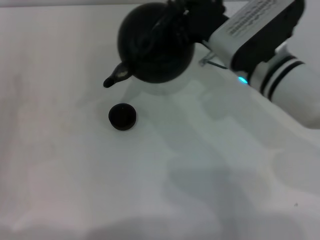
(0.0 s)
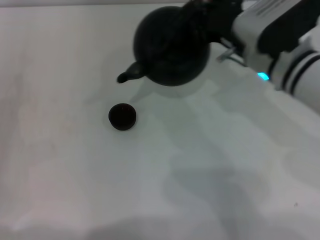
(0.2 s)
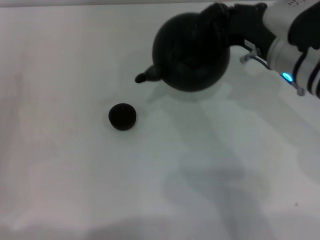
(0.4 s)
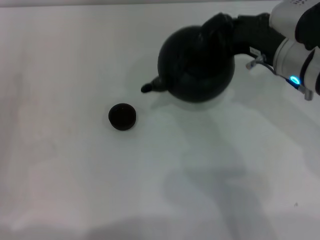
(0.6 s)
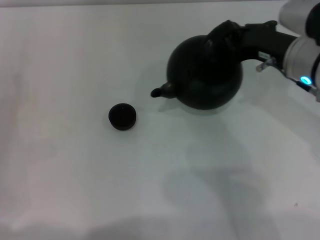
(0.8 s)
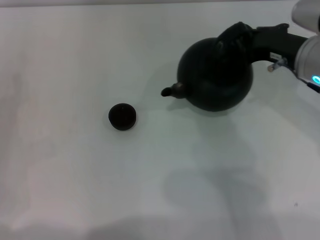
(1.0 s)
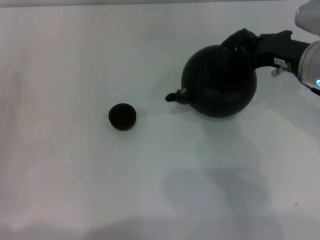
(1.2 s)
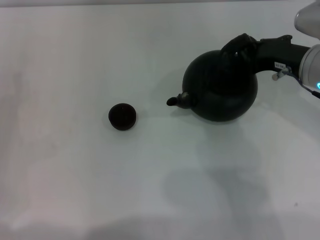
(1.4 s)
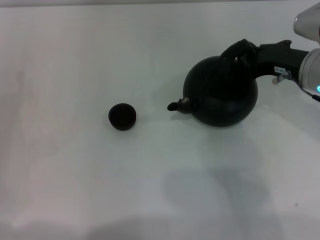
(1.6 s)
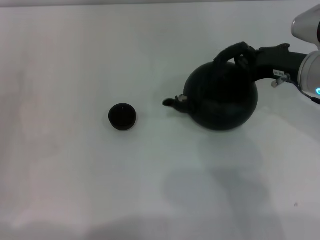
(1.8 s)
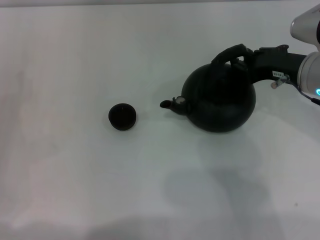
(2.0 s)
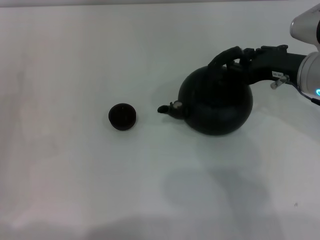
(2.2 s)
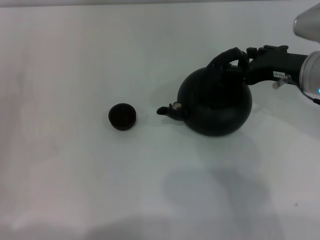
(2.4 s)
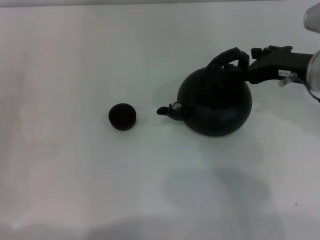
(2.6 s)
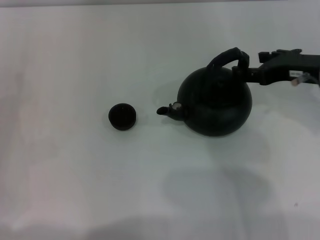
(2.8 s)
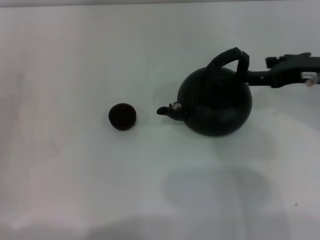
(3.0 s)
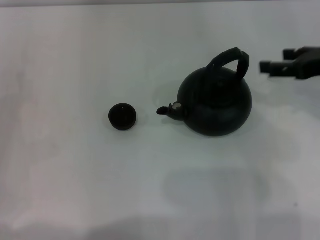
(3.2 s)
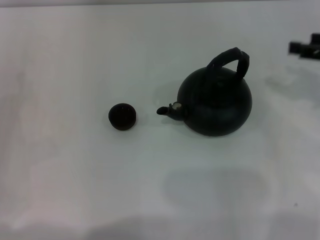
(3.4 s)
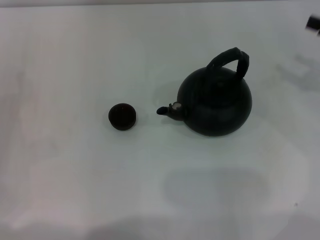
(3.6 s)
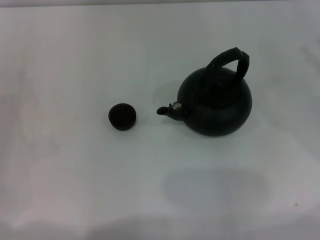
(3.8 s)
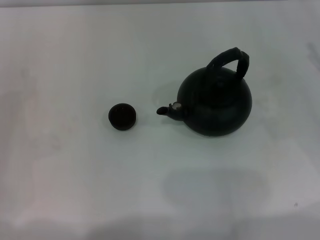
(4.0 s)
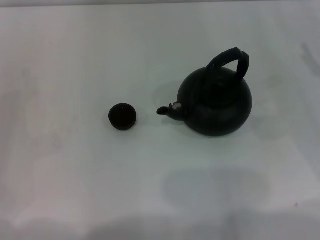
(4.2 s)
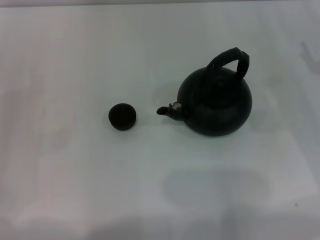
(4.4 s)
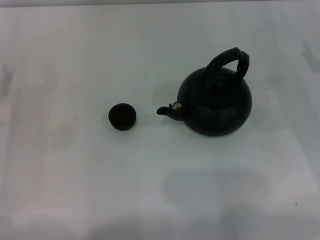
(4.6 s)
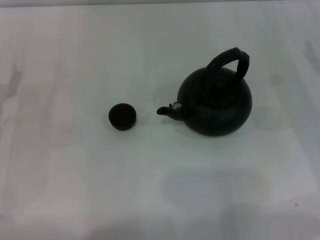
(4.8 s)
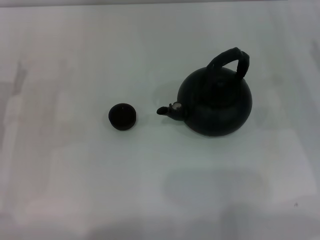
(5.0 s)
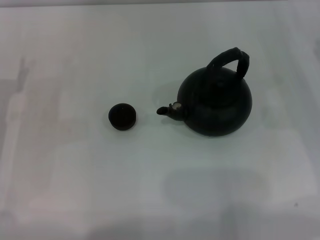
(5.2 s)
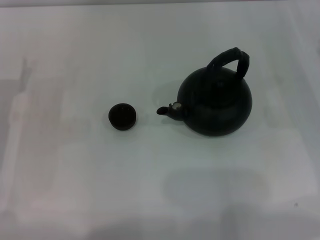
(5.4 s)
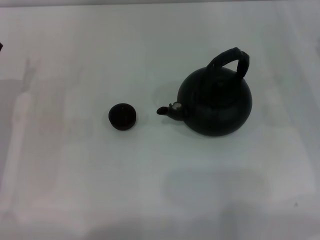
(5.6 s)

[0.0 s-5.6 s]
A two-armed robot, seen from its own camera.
Task of the whole recording: Grasp the handle of the teapot with one hand and pour tea into the teacup.
Step, 0.2 to 3.0 s: Put down the teapot with the right gripper.
0.0 to 1.4 s: The right gripper shifts about 10 cm to the right.
1.4 to 2.8 s: The right gripper opens up.
2.8 to 4.2 s: The right gripper shifts some 15 cm to the right and downward.
